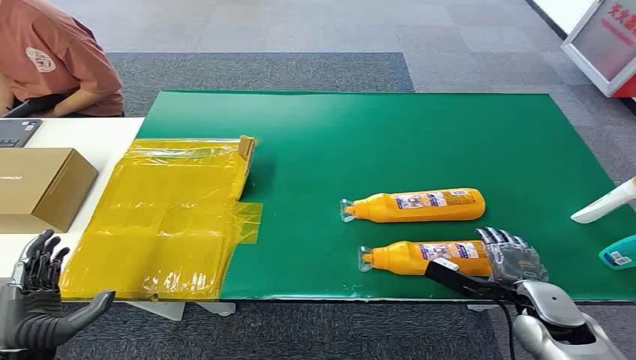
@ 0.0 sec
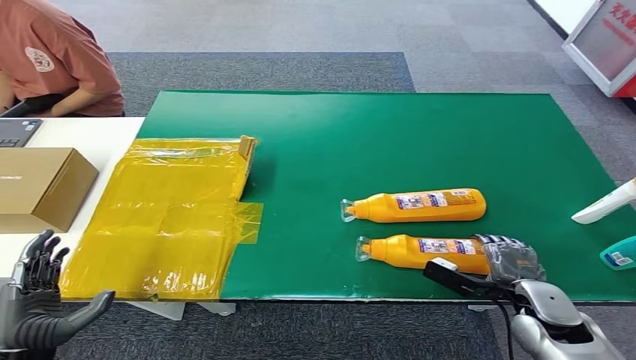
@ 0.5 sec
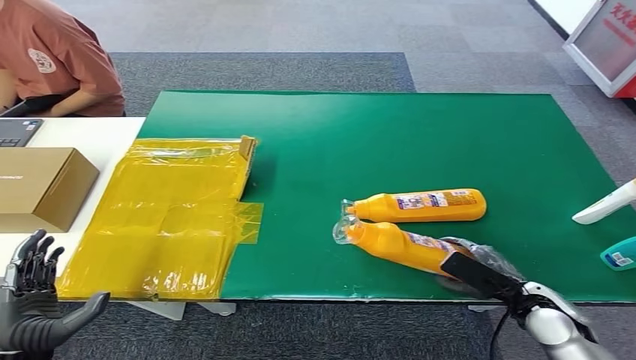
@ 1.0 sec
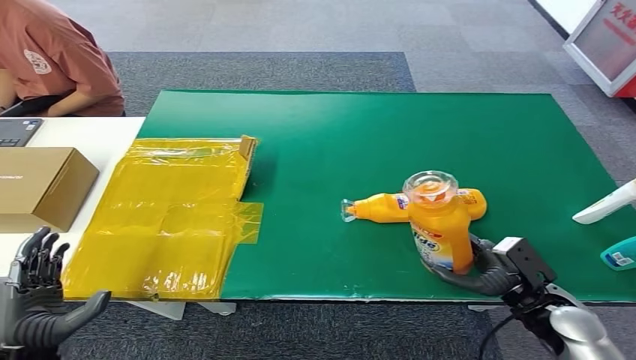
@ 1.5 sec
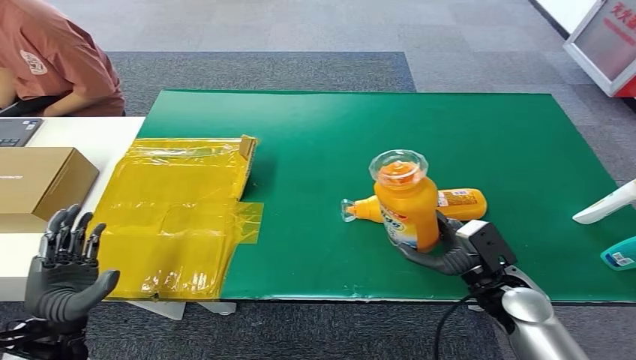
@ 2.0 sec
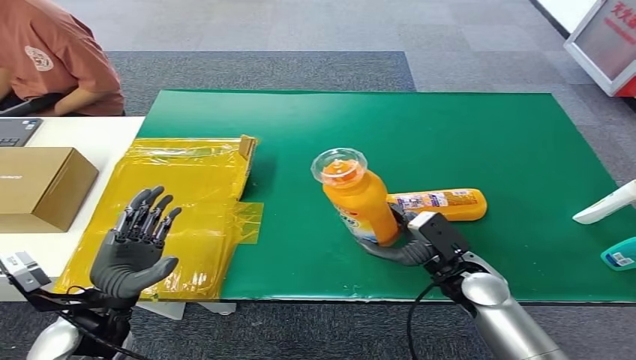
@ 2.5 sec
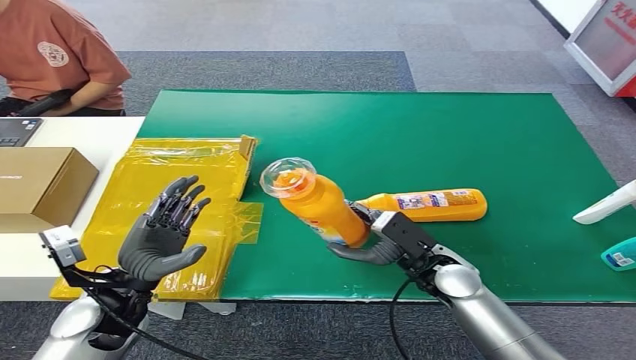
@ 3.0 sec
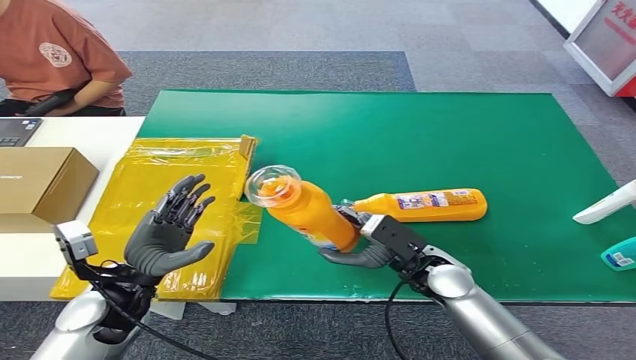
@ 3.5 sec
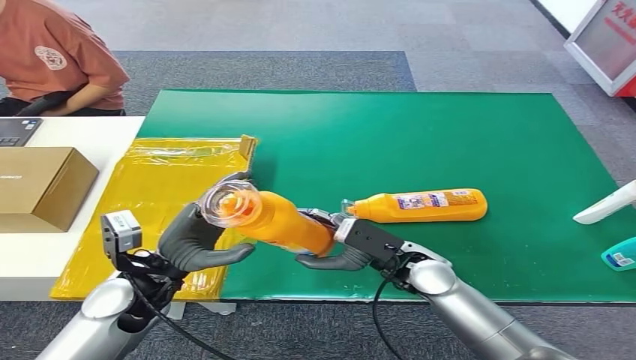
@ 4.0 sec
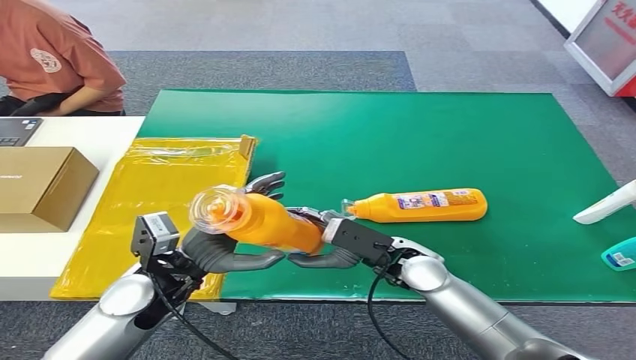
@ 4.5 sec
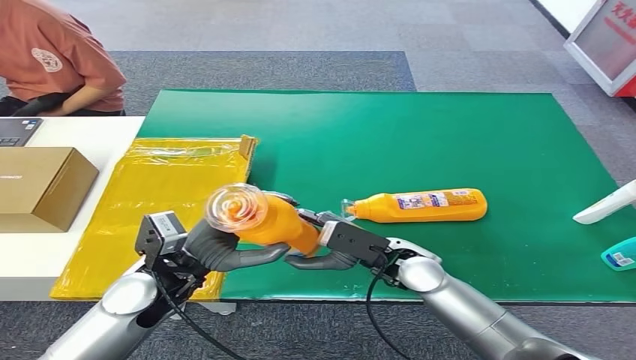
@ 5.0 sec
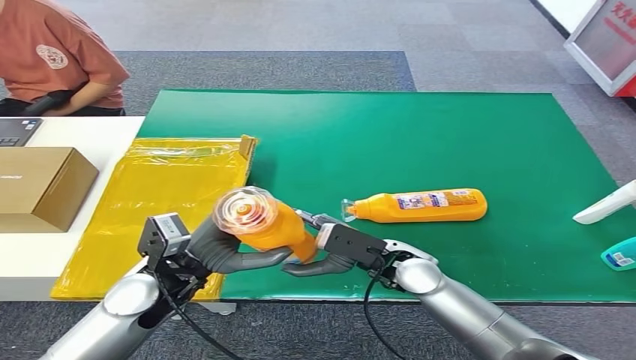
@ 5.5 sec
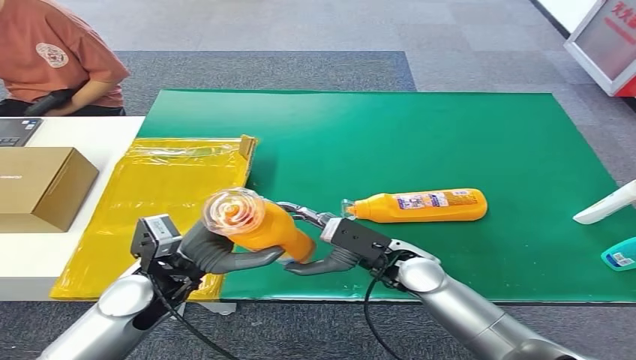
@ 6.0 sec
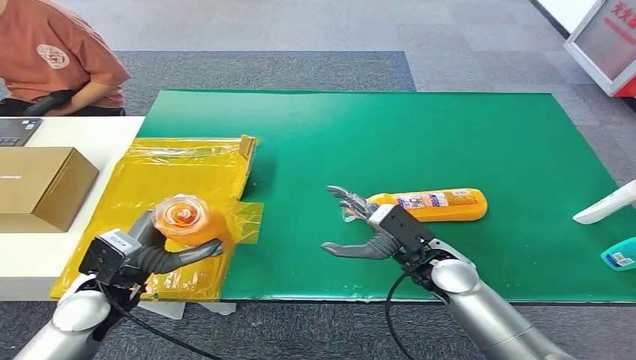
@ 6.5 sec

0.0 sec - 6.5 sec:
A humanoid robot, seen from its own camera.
Step, 0.0 sec - 2.0 sec: Pick up the bottle from the table.
Step, 2.5 sec - 6.5 sec: Turn the bottle to the front side.
4.5 sec - 6.5 sec: The left hand is displaced to the left by roughly 10 cm.

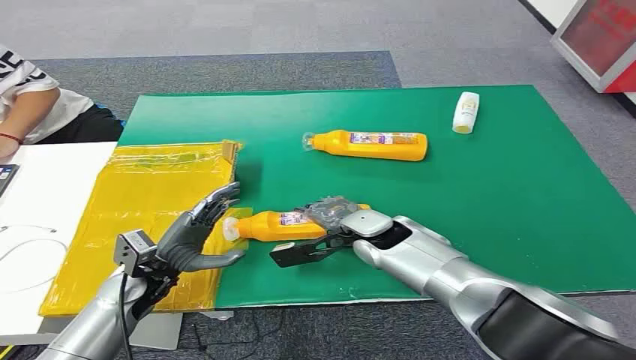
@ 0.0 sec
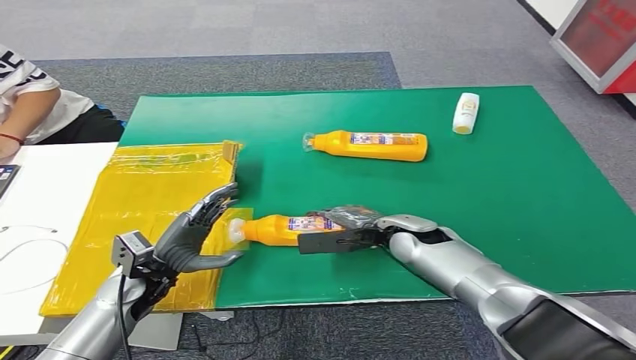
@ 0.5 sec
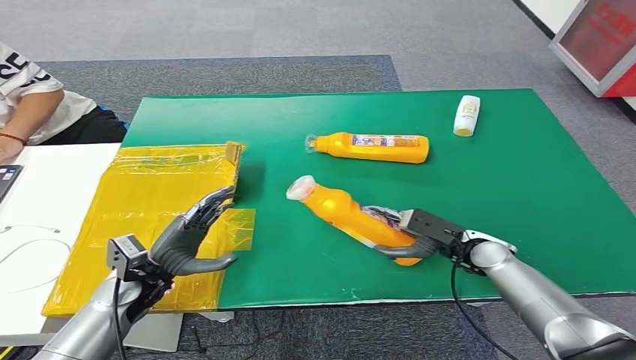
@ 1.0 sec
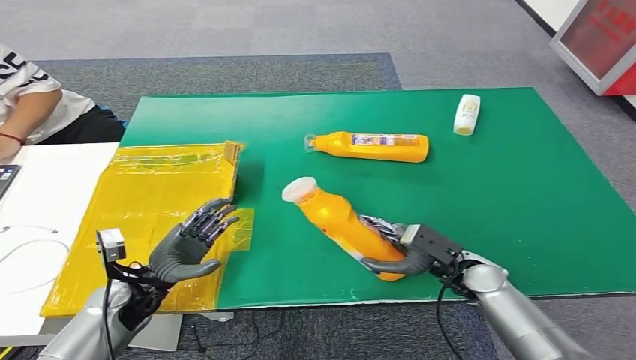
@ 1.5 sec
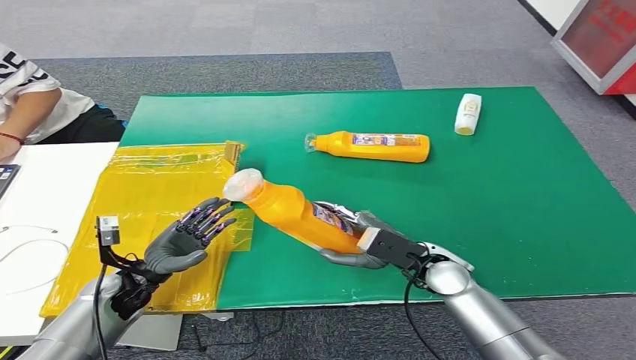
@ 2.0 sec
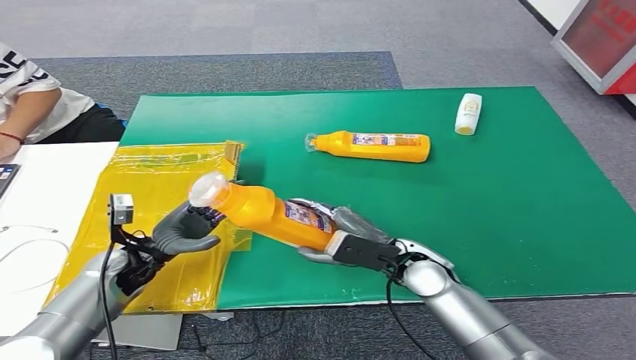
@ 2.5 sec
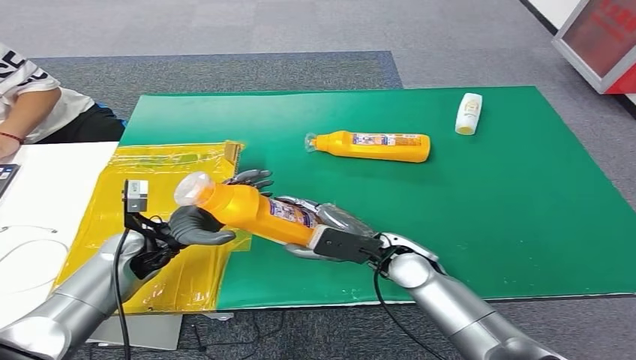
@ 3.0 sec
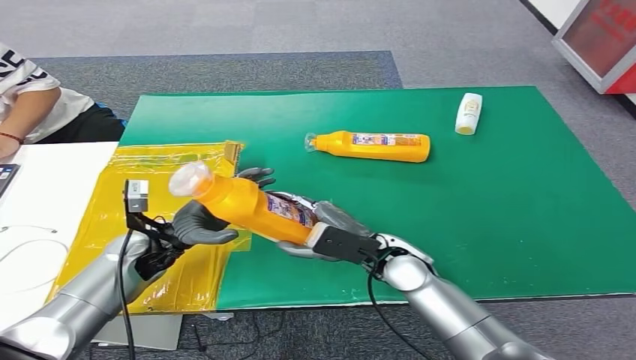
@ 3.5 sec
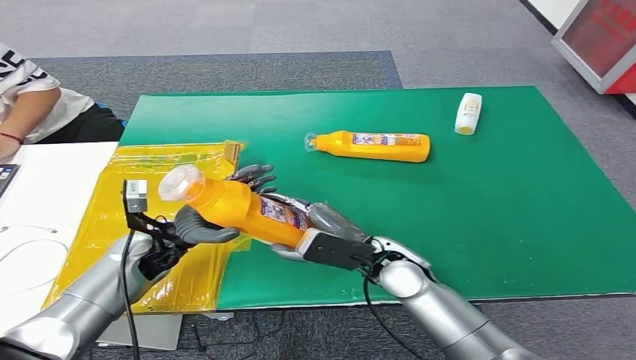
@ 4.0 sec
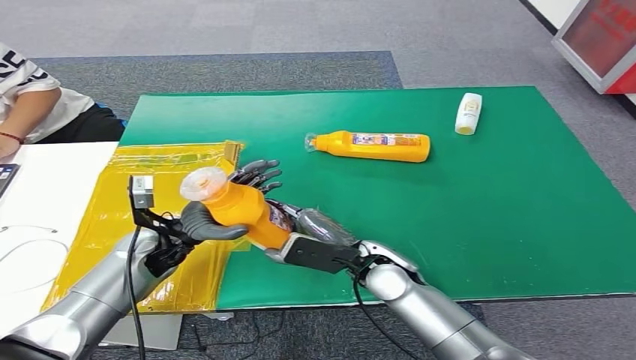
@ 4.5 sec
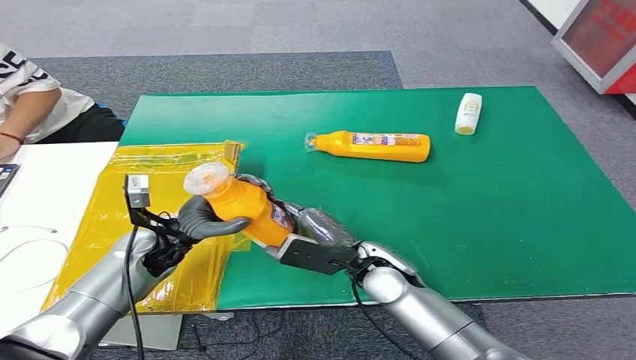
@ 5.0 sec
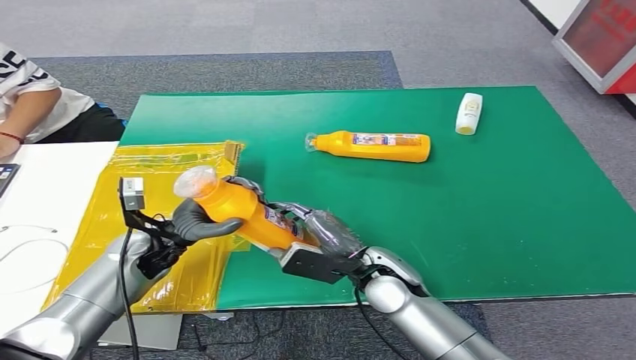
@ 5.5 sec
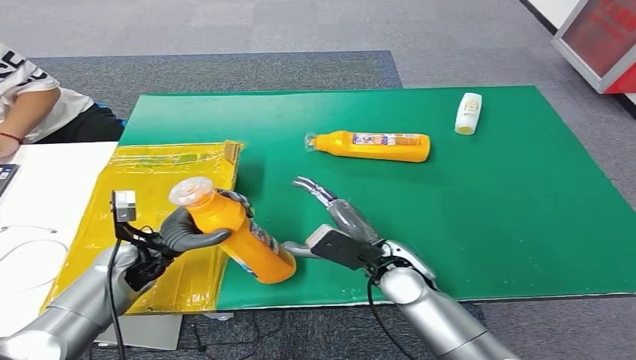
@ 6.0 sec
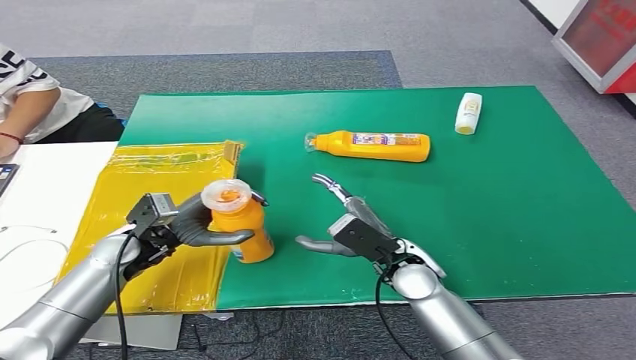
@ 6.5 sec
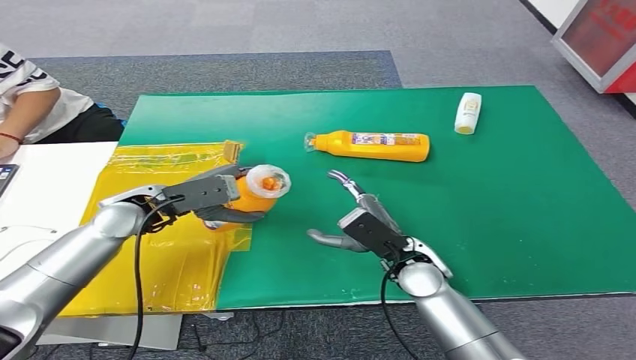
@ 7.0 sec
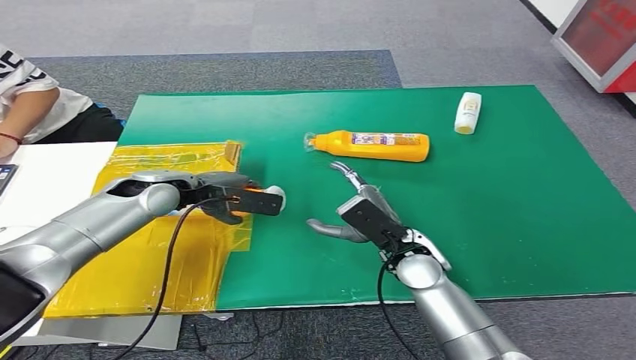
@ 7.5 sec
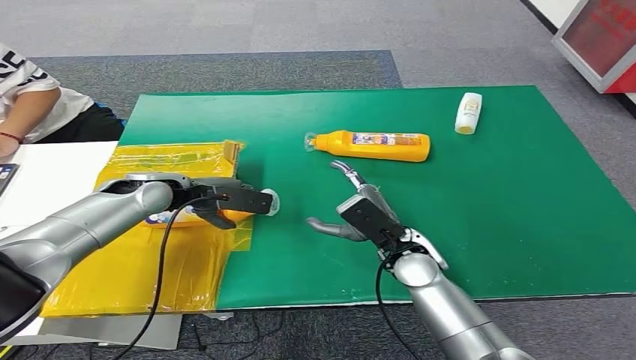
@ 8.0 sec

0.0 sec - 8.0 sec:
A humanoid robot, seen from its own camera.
Step, 0.0 sec - 2.0 sec: Pick up the bottle from the table.
Step, 2.5 sec - 8.0 sec: Turn the bottle to the front side.
2.0 sec - 4.0 sec: The right hand heads to the left, covering about 5 cm; the left hand heads upward, forward and to the right, covering some 10 cm.
4.0 sec - 6.0 sec: There are only small adjustments of the hands.
6.0 sec - 8.0 sec: The left hand is displaced forward and upward by roughly 15 cm.
